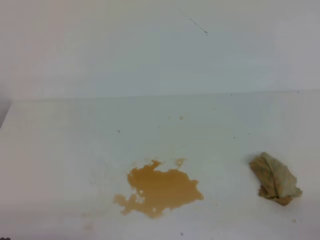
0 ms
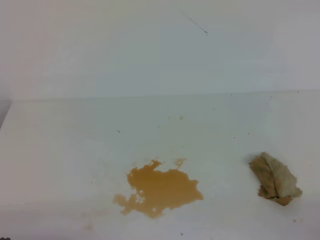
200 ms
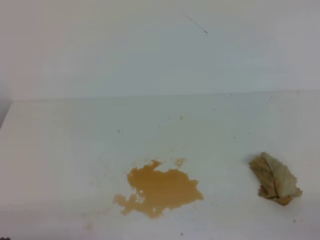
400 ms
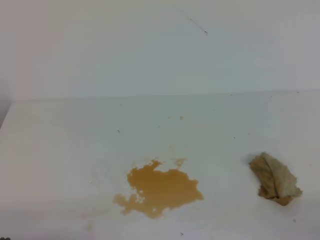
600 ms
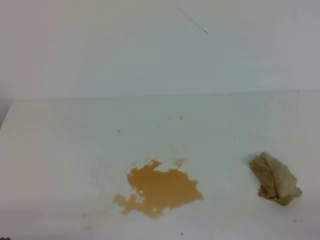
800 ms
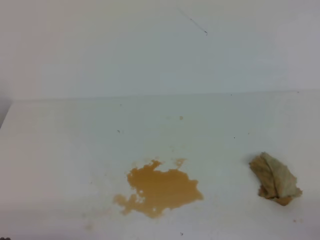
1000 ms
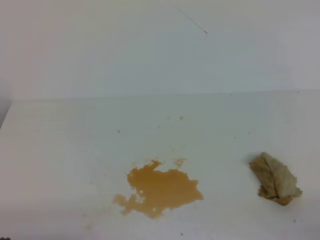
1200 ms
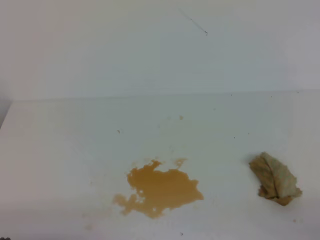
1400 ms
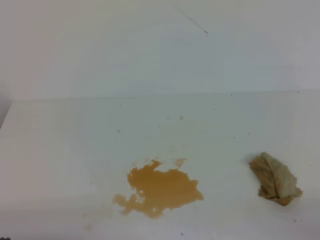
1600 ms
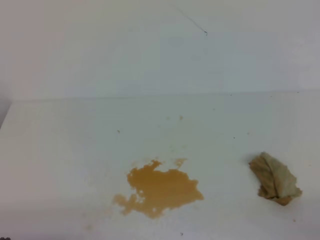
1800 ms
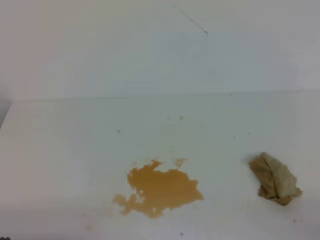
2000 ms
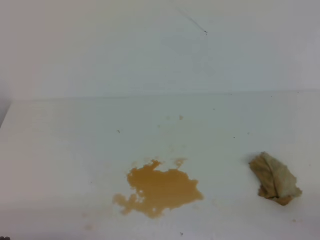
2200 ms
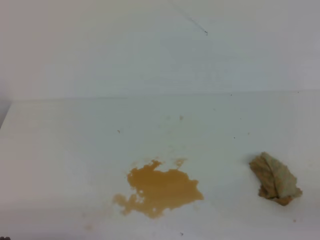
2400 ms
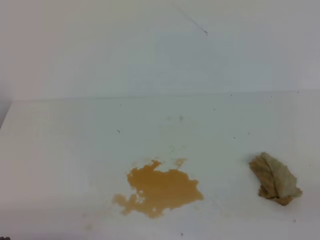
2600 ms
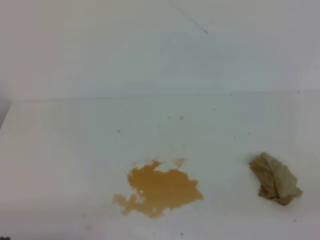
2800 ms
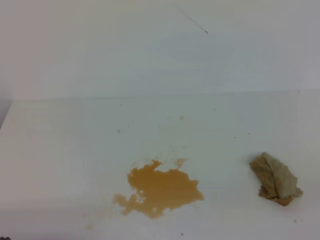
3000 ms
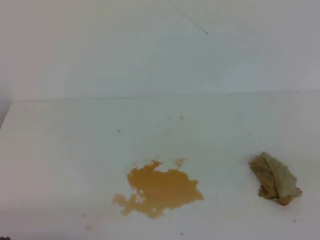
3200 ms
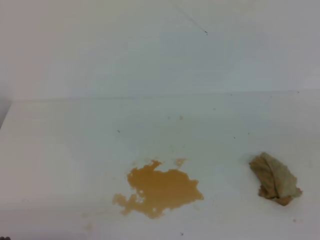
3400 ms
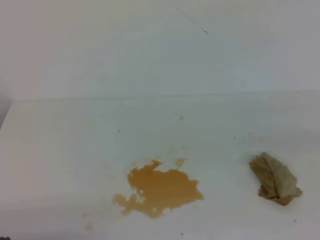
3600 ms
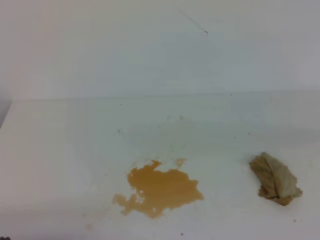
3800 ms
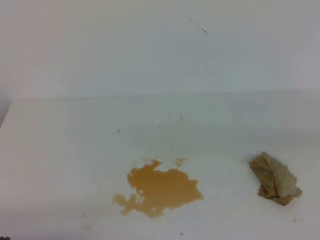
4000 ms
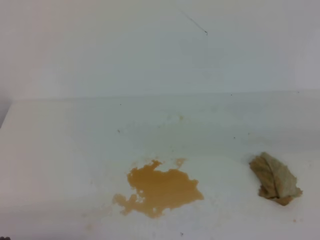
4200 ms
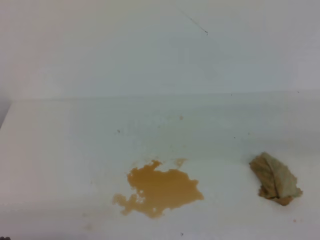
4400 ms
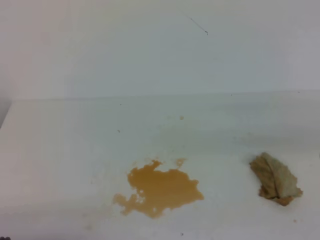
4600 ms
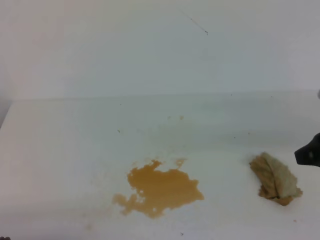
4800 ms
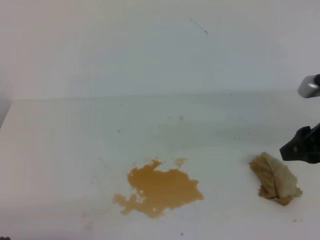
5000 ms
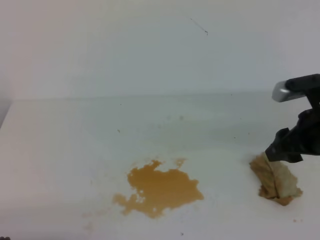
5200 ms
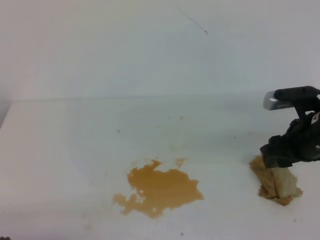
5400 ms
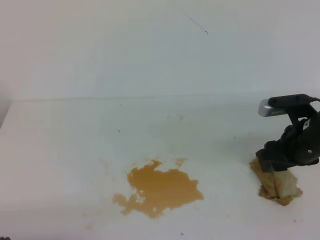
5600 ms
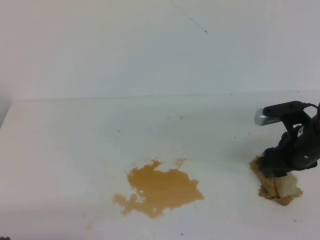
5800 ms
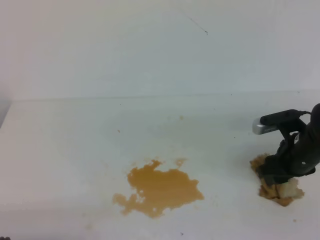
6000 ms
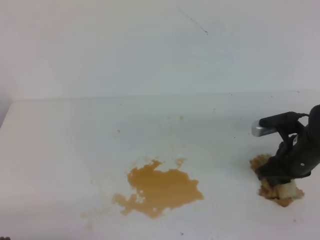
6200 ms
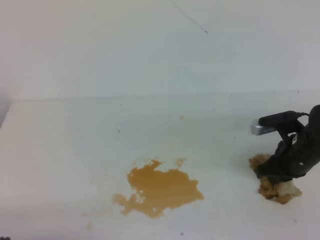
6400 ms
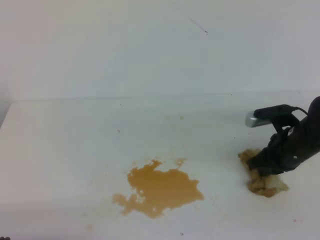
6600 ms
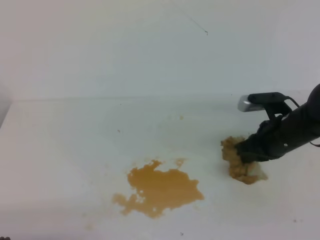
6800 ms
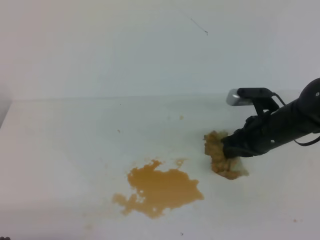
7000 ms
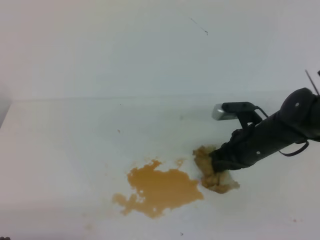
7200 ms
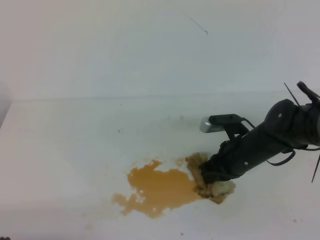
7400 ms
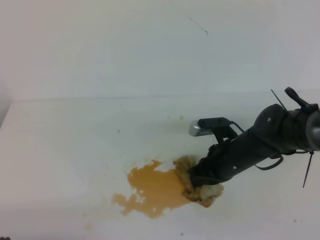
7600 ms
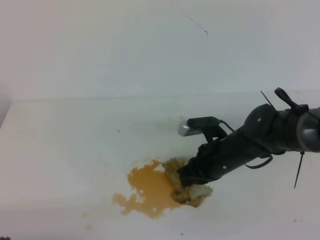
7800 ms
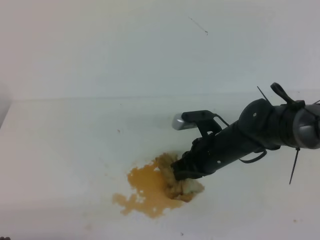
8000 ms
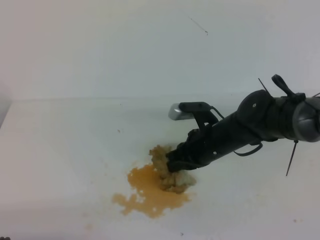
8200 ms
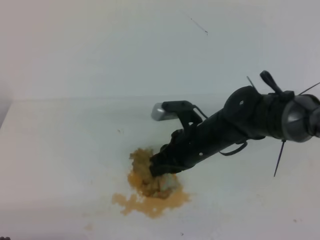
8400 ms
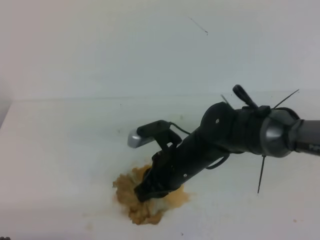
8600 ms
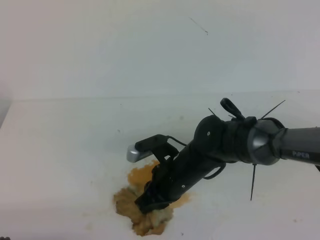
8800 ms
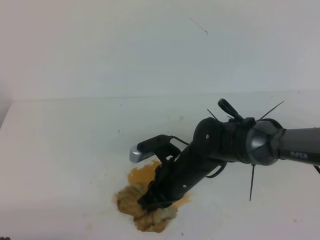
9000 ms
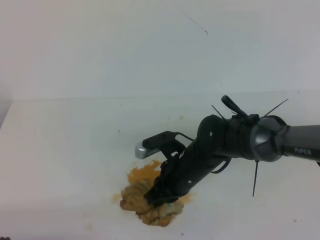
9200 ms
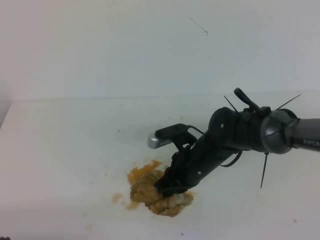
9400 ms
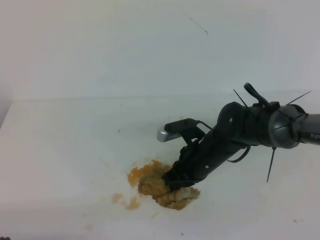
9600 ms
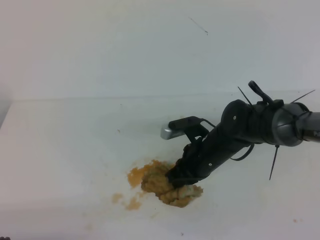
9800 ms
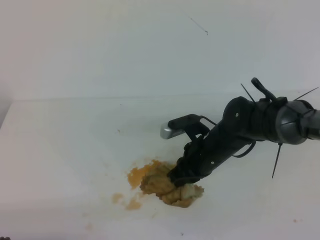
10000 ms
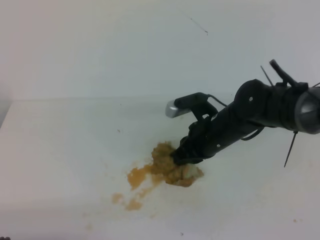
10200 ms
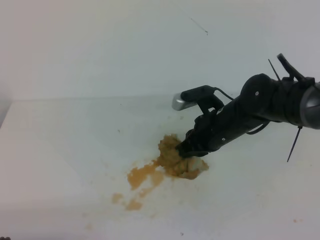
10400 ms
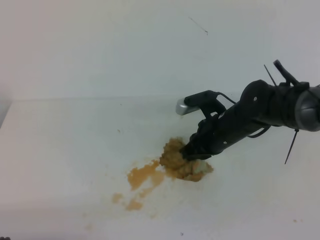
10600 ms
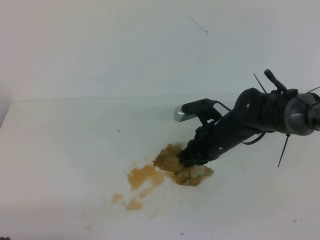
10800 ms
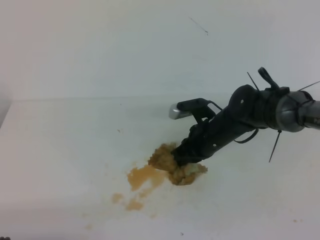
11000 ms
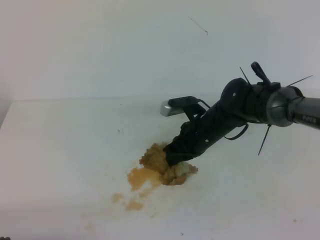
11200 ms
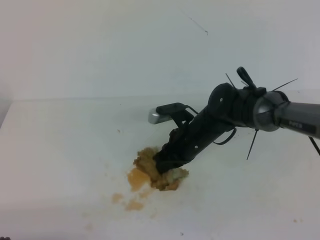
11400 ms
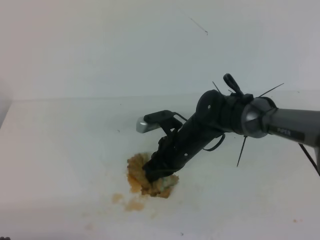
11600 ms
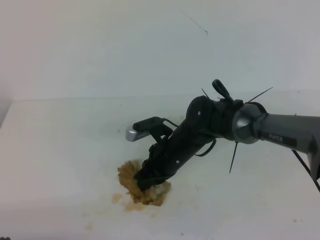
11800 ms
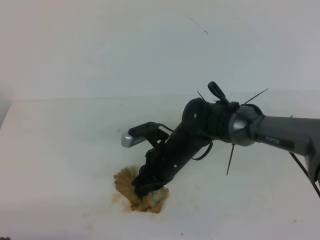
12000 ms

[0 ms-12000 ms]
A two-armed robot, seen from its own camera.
0 ms to 1600 ms: The two grippers keep their place.
4400 ms to 6000 ms: The right gripper goes roughly 20 cm downward, forward and to the left, and opens.
6000 ms to 7600 ms: The right gripper moves to the left, roughly 10 cm, and closes.
7600 ms to 9000 ms: The right gripper travels to the left by some 10 cm.
9000 ms to 10400 ms: The right gripper goes roughly 10 cm to the right and forward.
10400 ms to 12000 ms: The right gripper goes approximately 10 cm to the left and downward.

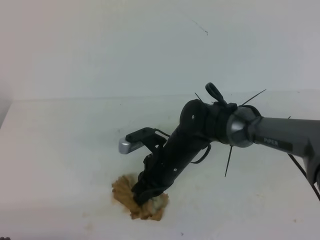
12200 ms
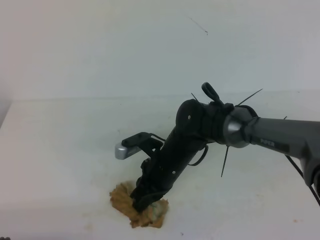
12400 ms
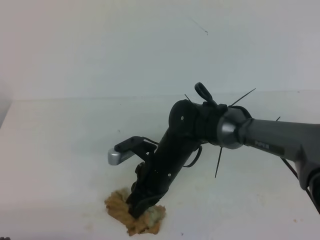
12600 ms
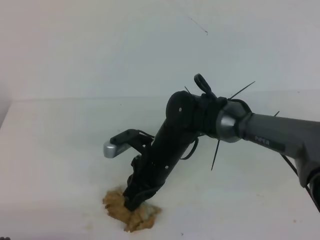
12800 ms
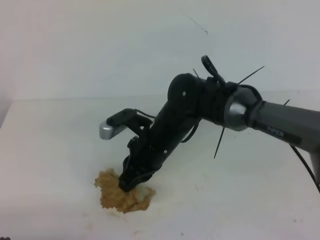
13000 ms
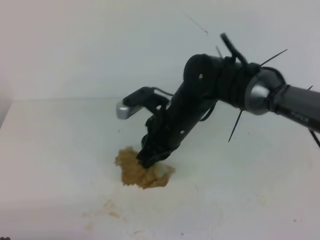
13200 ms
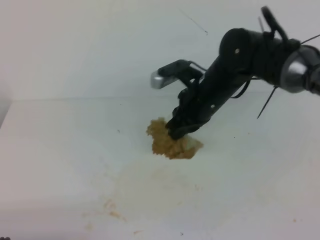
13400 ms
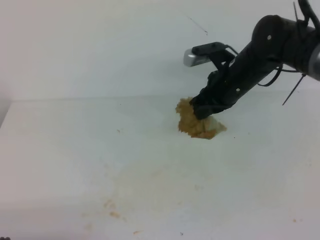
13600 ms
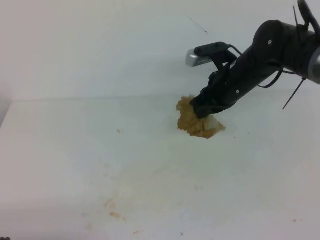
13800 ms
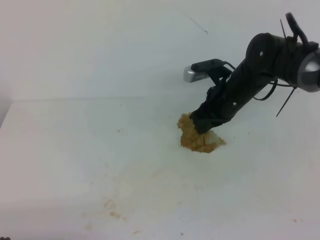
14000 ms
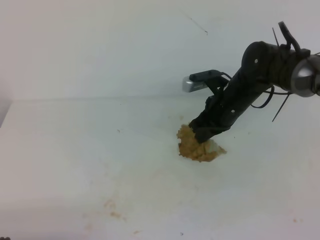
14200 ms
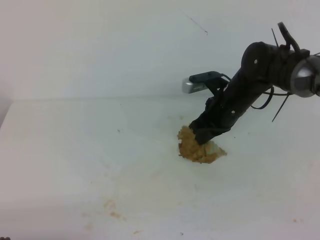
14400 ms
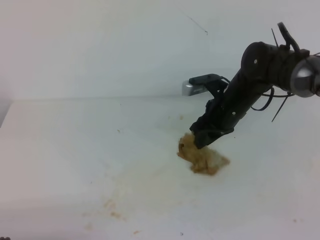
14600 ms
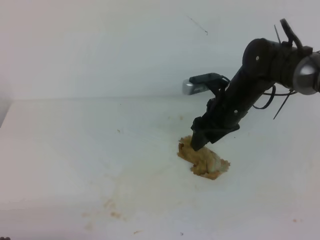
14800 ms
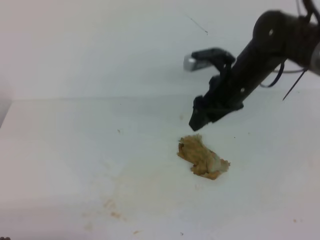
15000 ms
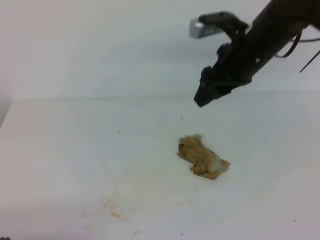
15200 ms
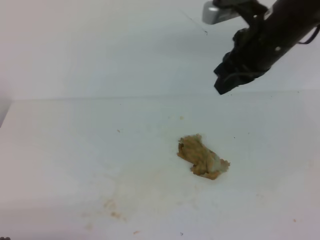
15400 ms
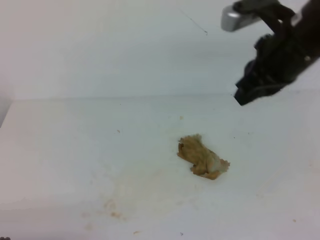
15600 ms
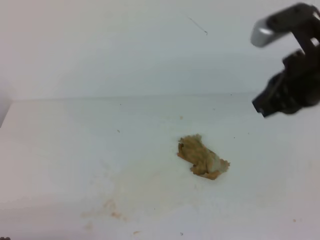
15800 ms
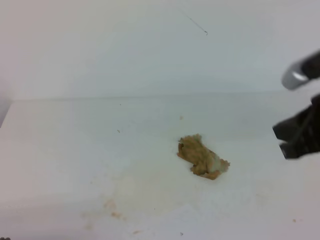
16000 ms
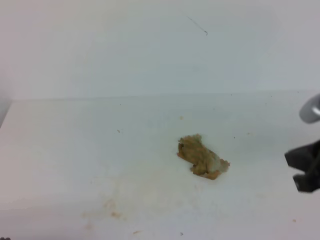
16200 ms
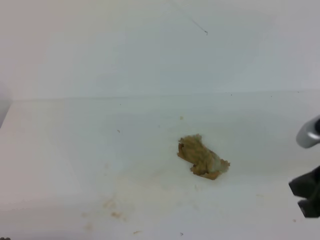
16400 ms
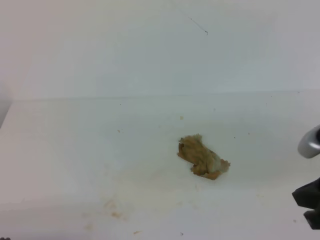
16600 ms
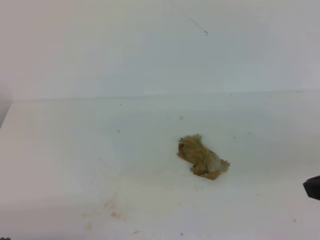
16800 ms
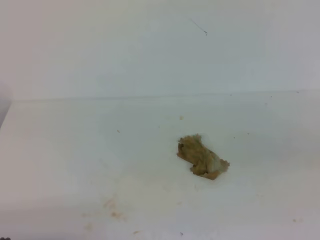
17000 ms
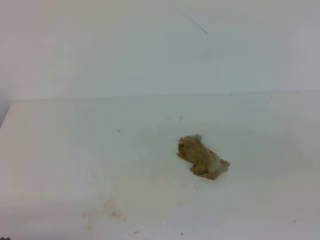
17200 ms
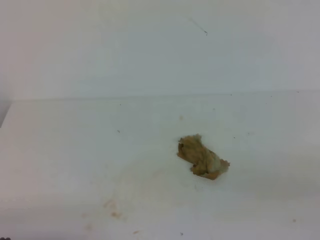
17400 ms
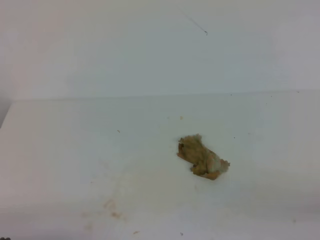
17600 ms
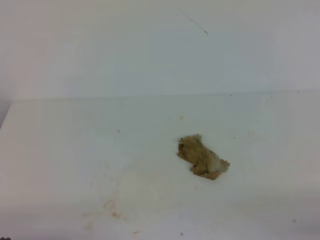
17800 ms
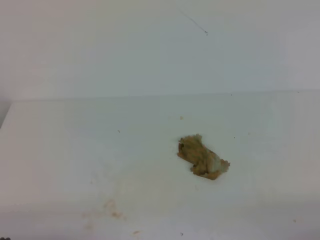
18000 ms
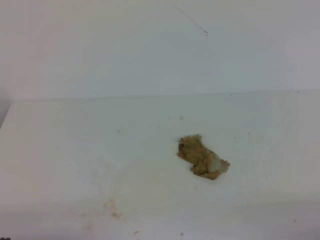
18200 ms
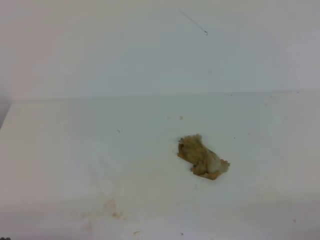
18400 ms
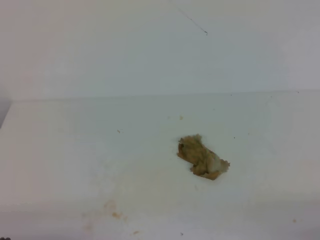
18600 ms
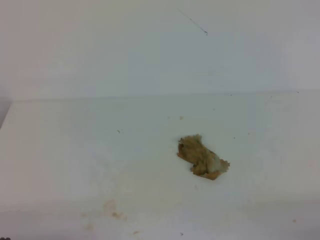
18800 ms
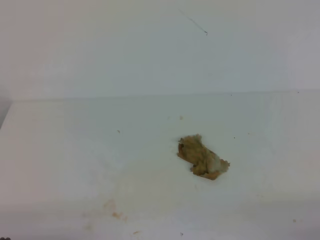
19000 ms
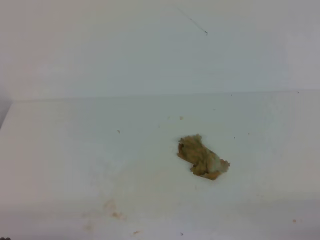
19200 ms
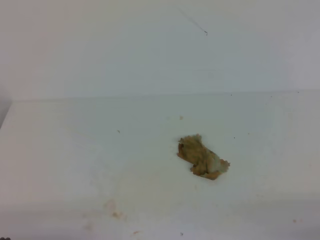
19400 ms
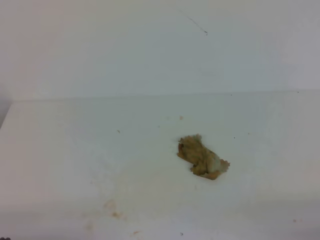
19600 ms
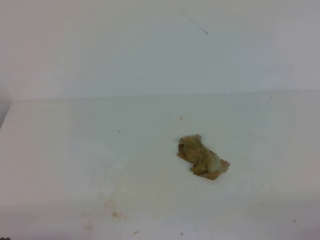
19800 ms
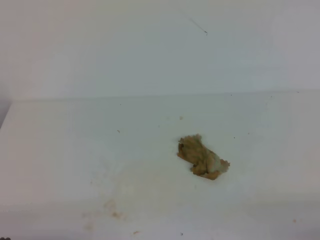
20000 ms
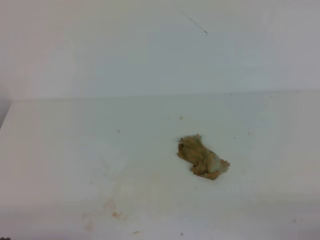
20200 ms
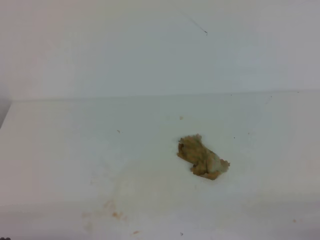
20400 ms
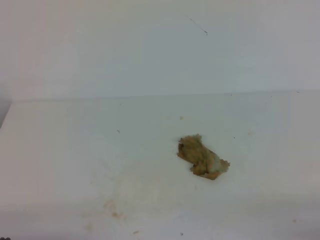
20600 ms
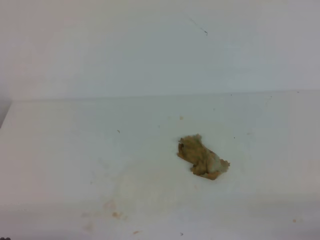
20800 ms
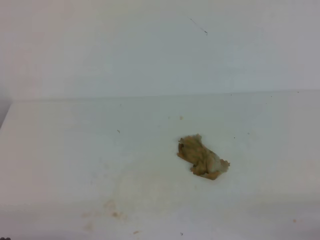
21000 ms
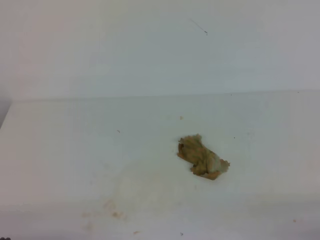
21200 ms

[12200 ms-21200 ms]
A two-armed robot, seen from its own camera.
12200 ms to 13800 ms: The right gripper goes some 20 cm to the right, upward and forward.
13800 ms to 15200 ms: The right gripper is displaced upward by roughly 5 cm, and opens.
15200 ms to 16600 ms: The right gripper travels backward and to the right by some 25 cm, and closes up.
16600 ms to 18200 ms: The right gripper is displaced backward, downward and to the right by about 20 cm.
18200 ms to 21200 ms: Both grippers stay about where they are.
